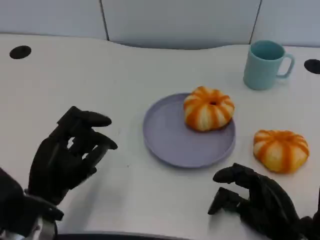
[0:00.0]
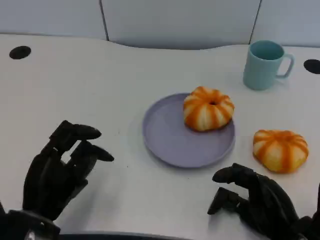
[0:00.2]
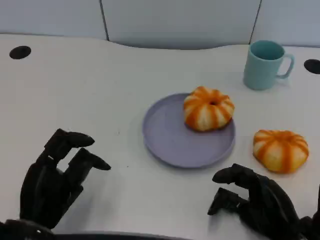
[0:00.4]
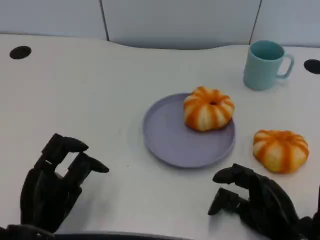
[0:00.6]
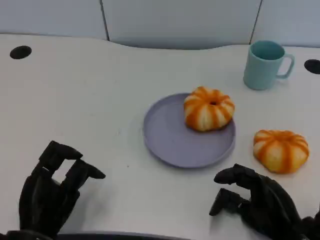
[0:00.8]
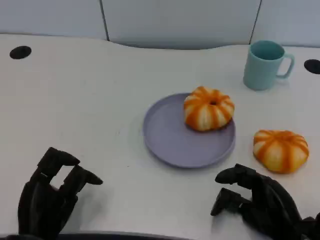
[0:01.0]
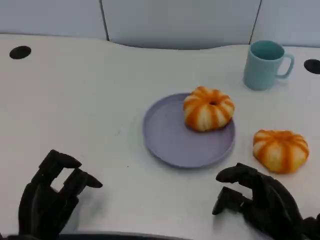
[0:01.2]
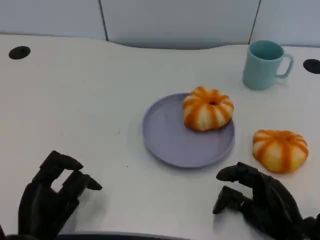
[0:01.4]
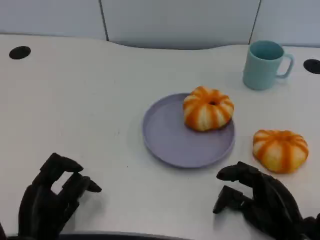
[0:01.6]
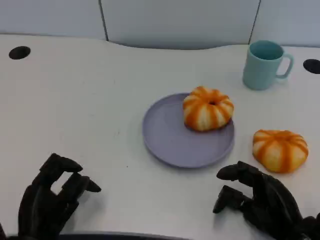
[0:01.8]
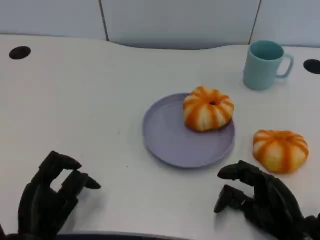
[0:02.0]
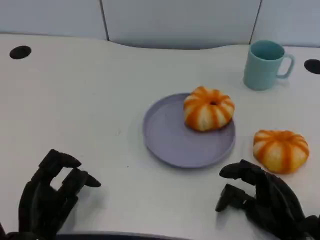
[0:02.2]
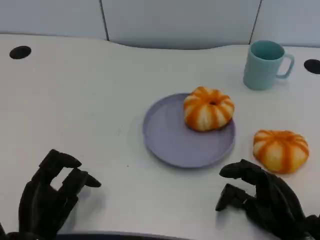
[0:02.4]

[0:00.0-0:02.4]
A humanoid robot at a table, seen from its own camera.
Task of the whole recording: Grasp the bread from the table and place it into the plate.
0:00.0 to 0:01.2: The left hand goes about 5 cm downward.
0:01.2 to 0:02.4: Both hands stay put.

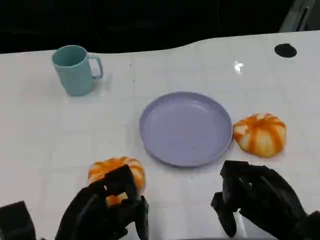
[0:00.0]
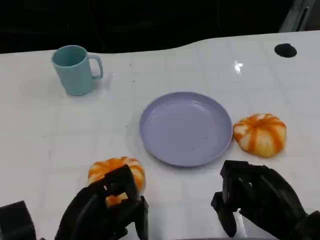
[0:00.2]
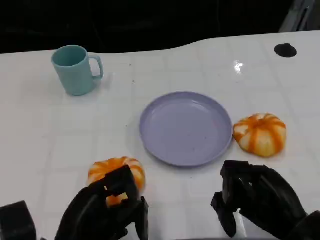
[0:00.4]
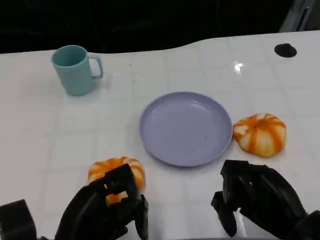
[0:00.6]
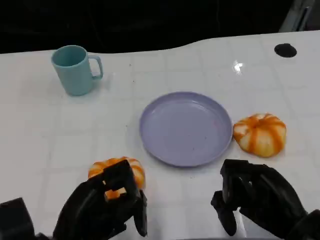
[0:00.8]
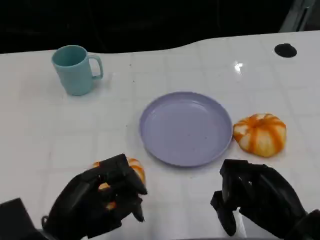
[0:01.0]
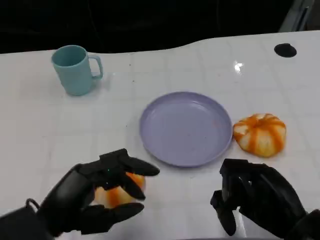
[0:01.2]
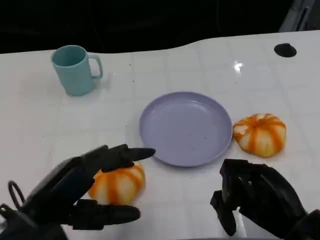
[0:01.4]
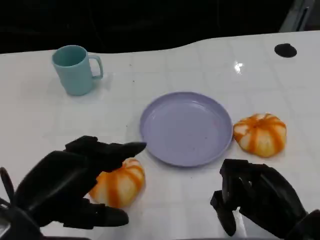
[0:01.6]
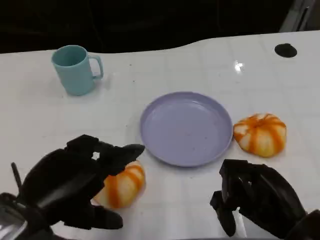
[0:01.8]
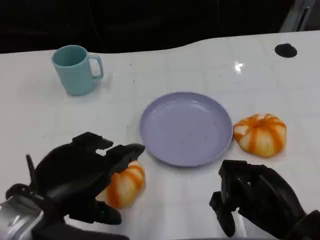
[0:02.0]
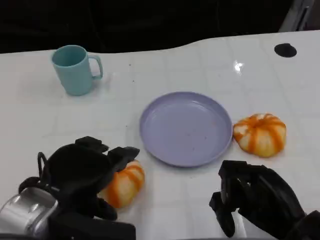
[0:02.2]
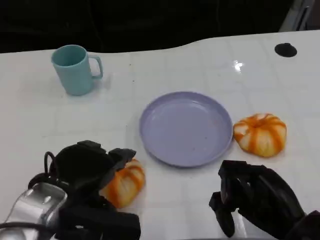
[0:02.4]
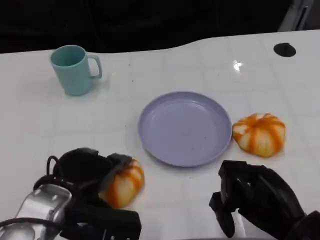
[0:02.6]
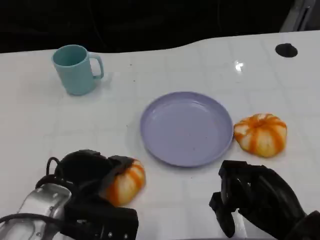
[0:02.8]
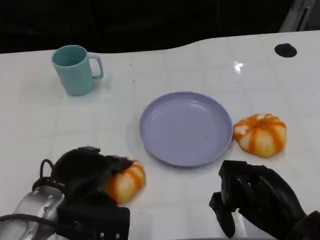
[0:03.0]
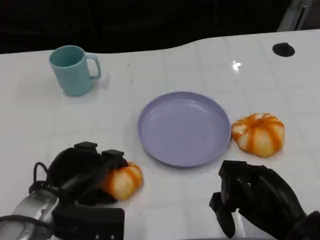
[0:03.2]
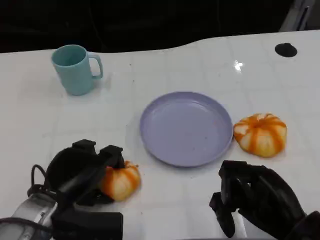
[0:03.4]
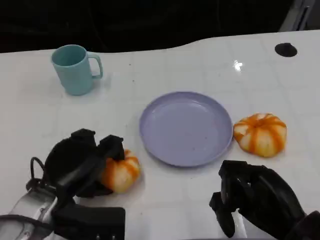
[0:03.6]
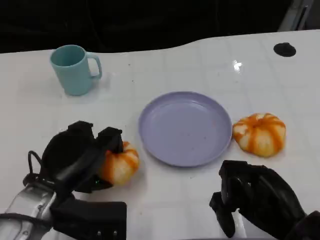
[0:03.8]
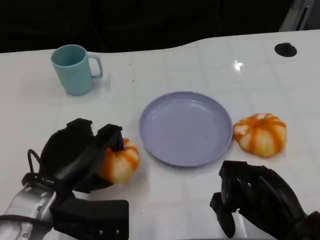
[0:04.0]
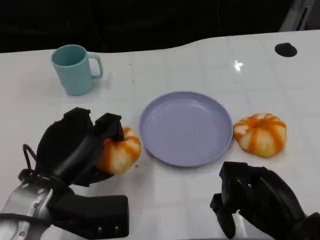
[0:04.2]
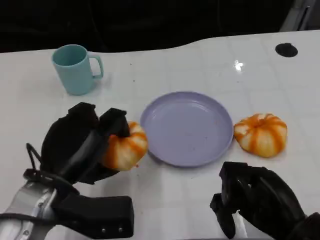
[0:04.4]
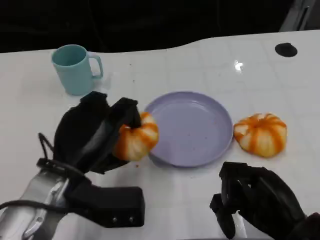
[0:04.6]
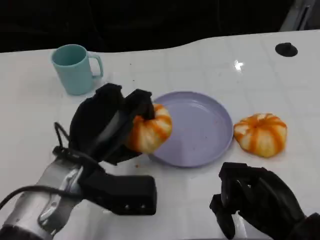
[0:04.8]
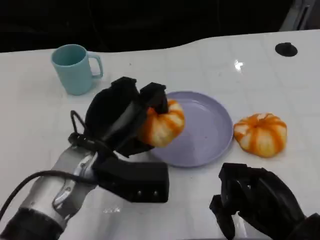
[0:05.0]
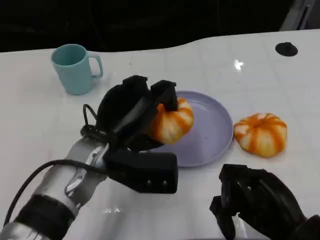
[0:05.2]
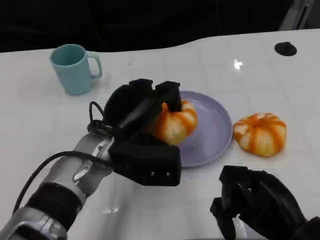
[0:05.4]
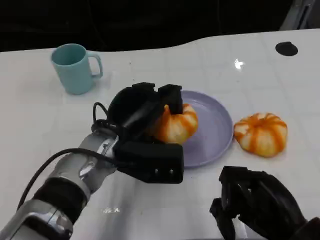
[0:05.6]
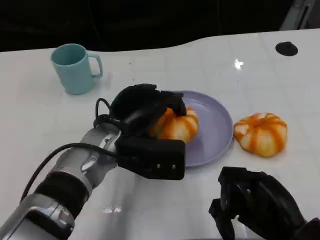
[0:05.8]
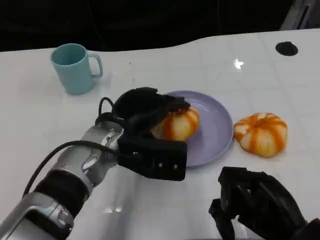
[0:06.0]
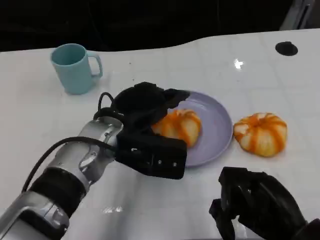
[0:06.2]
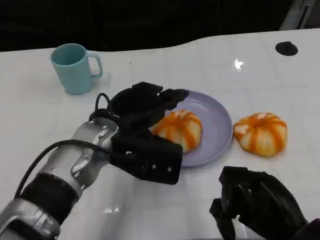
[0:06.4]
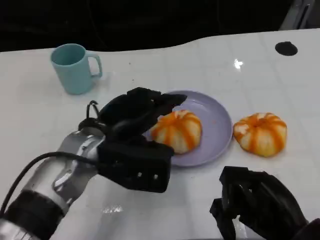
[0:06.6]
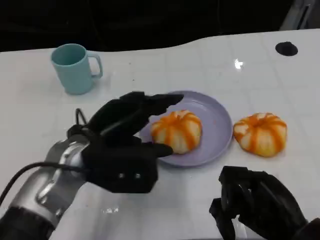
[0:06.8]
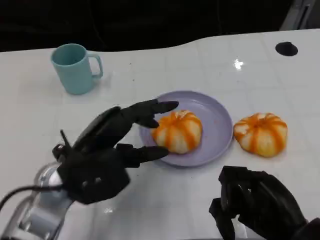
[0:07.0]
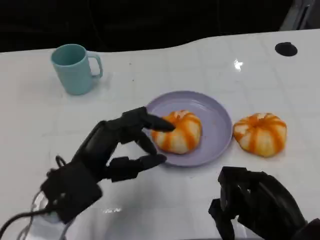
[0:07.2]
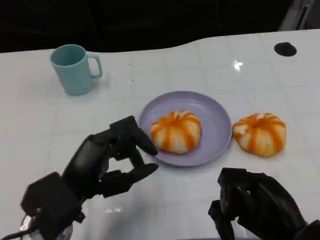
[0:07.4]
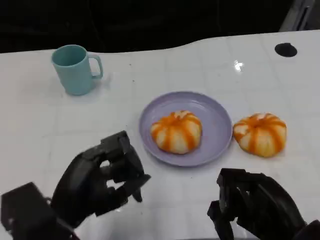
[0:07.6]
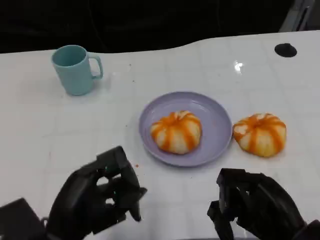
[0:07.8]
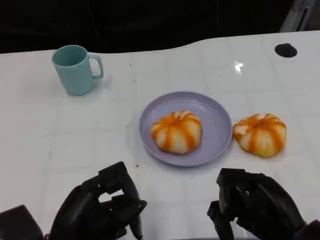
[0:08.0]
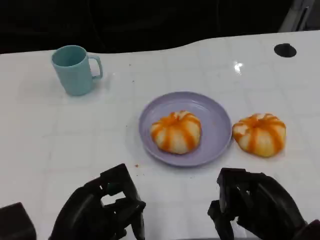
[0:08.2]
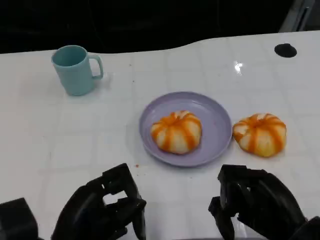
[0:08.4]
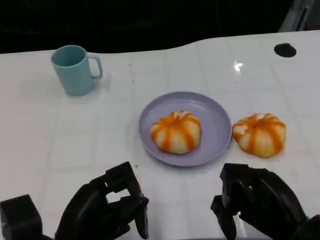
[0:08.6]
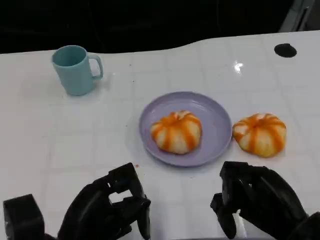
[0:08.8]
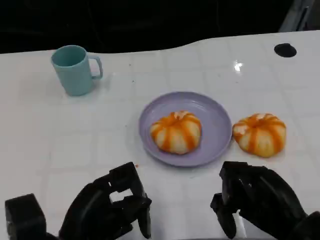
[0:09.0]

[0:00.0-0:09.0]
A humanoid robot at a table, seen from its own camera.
Task of the whole recording: Grasp the bread from the table and place it into the plate.
0:00.0 to 0:01.6: The left hand moves upward, approximately 10 cm.
0:01.6 to 0:03.0: The left hand travels downward and forward by about 10 cm.
0:04.4 to 0:06.0: The left hand heads to the right and forward, covering approximately 10 cm.
0:06.0 to 0:07.6: The left hand shifts about 15 cm backward and to the left.
0:07.6 to 0:09.0: There are only small adjustments of the hands.

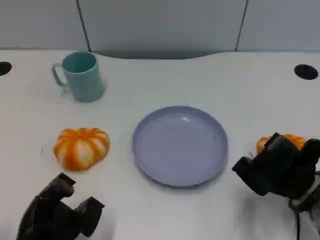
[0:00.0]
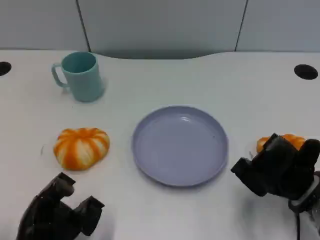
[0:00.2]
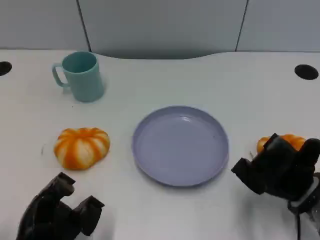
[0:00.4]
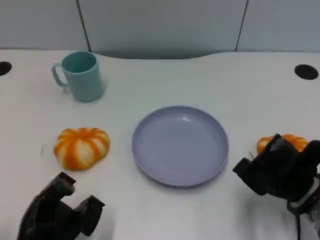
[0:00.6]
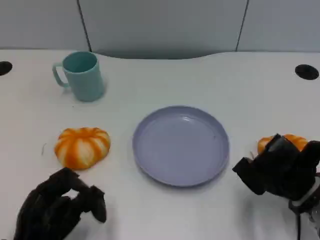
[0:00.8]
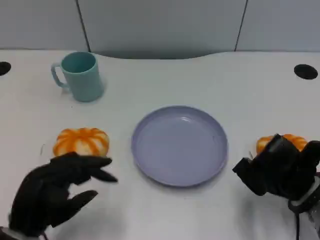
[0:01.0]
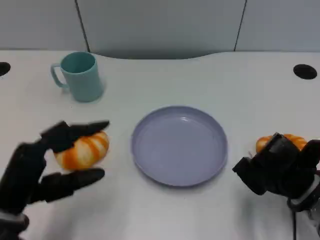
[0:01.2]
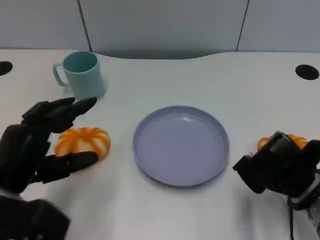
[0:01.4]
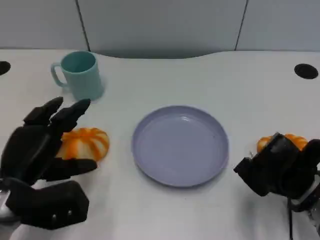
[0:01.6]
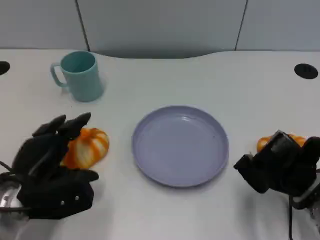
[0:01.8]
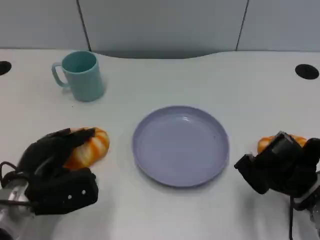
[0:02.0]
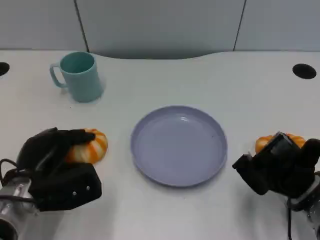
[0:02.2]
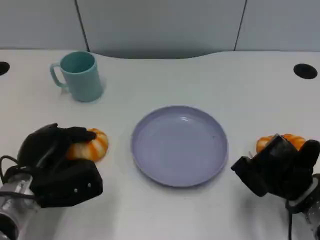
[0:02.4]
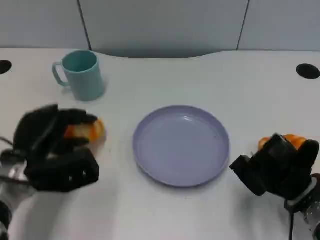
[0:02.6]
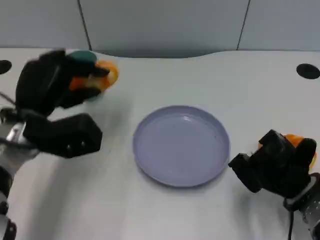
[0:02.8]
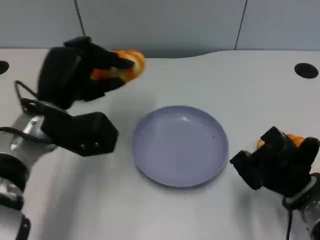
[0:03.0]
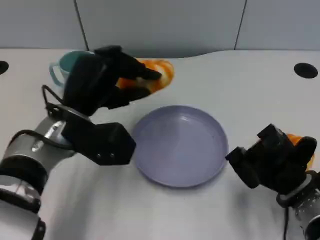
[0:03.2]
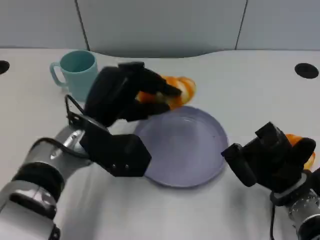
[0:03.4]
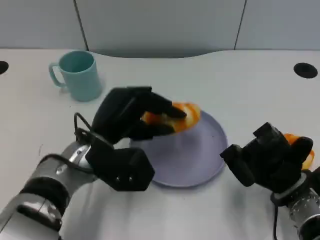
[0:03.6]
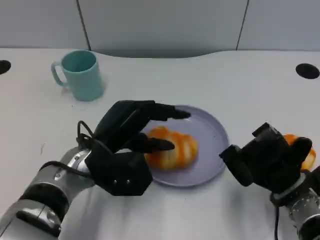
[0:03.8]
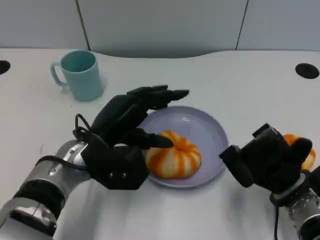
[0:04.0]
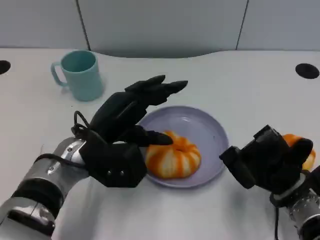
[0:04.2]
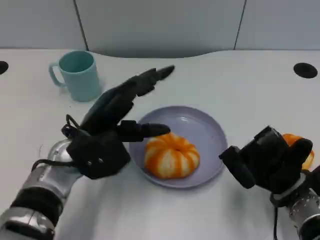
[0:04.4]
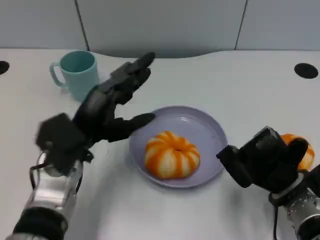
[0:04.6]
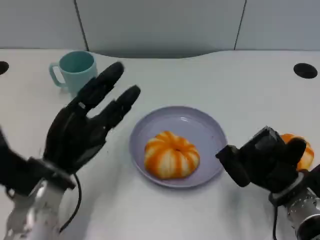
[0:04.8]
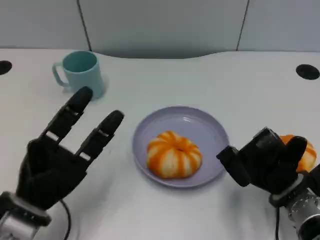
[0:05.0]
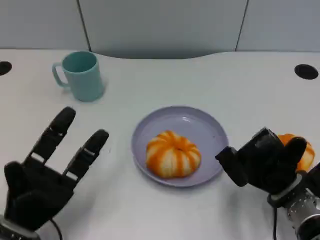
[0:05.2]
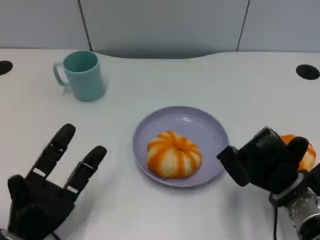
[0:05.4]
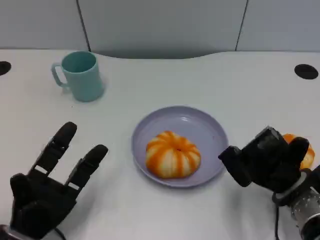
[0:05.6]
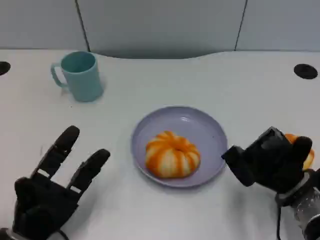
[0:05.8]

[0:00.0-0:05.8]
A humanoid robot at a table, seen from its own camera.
Task of the whole recording: Grasp the bread from the table and place it into the plate.
0:00.0 to 0:01.4: The left hand shifts approximately 10 cm upward.
0:01.4 to 0:02.8: The left hand heads forward, covering roughly 10 cm.
0:02.8 to 0:04.4: The left hand goes some 5 cm to the right.
0:04.4 to 0:05.8: The left hand goes some 15 cm downward, backward and to the left.

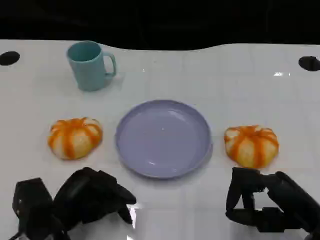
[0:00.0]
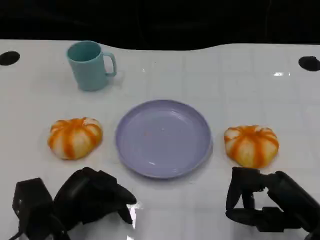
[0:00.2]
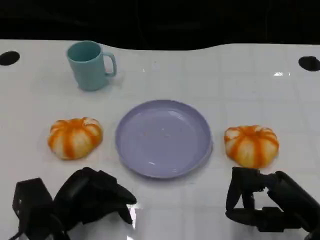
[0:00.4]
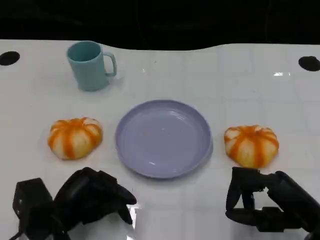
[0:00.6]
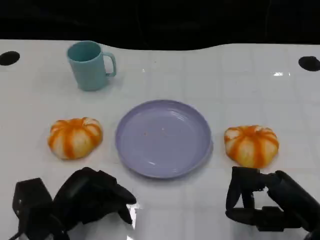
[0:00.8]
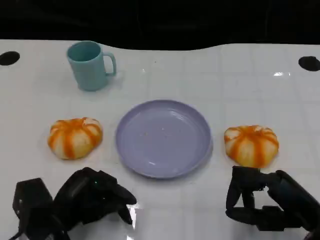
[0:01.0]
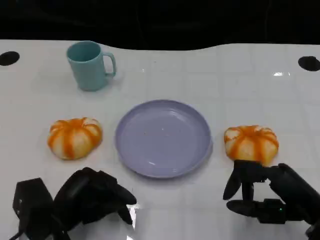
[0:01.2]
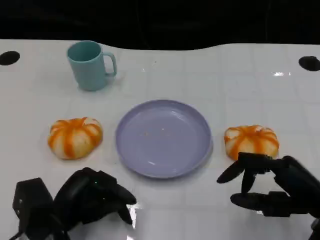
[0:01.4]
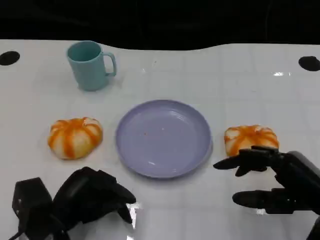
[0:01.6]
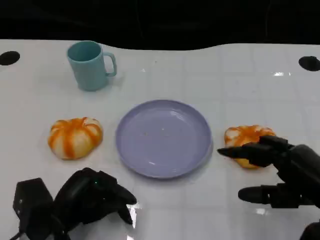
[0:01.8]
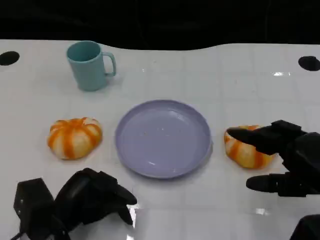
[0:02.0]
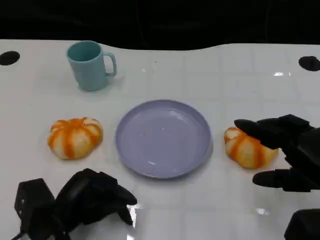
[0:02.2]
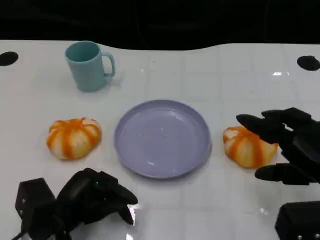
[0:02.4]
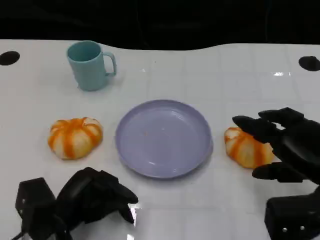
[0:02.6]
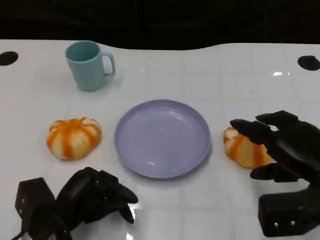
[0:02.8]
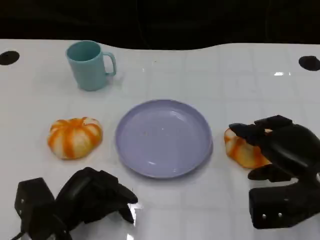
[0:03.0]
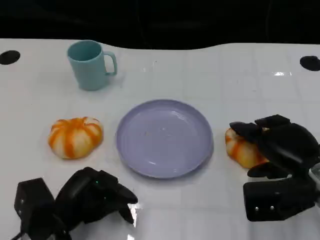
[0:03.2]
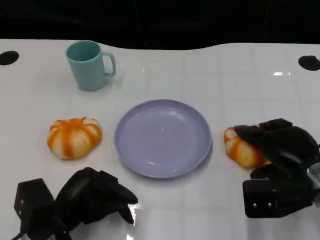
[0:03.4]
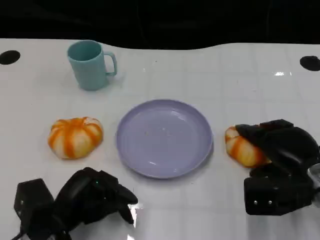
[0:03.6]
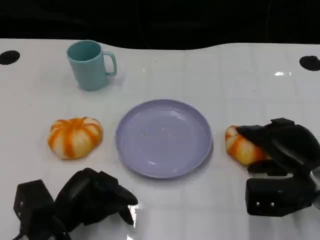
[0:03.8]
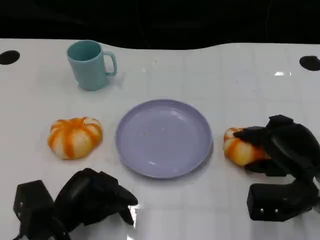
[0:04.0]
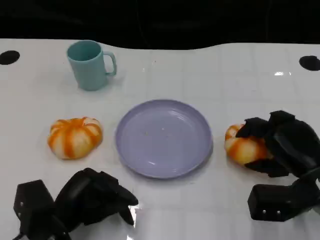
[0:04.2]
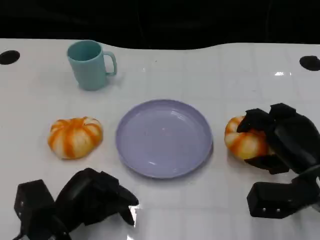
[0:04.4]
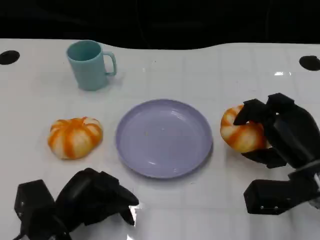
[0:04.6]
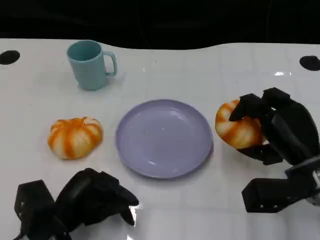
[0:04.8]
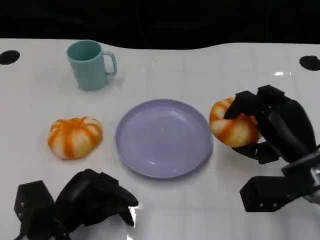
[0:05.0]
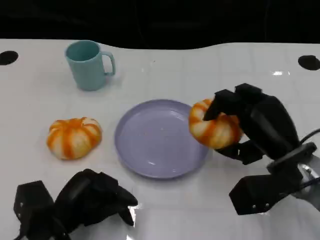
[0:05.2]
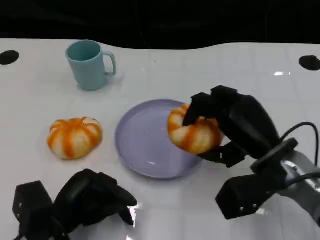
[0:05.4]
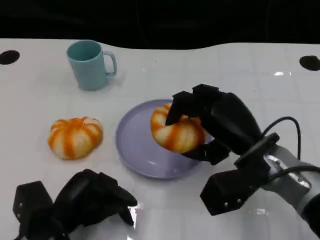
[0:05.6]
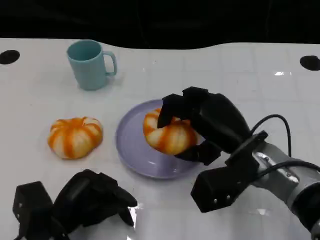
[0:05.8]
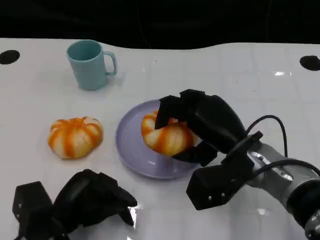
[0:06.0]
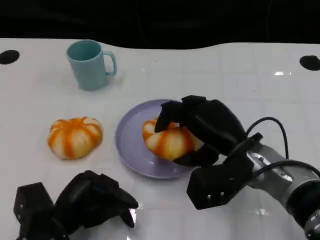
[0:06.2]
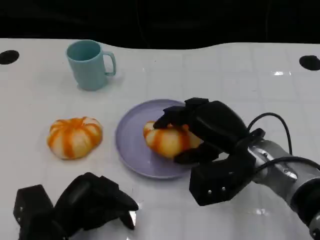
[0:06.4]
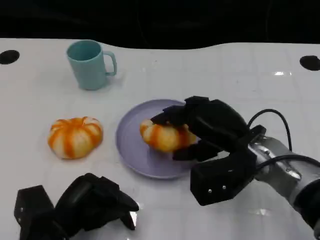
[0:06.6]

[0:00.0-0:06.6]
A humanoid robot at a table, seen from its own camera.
Task of the whole recording: Grasp the bread from the table and place it into the plate.
0:00.0 to 0:01.6: There are only small adjustments of the hands.
0:01.6 to 0:03.2: The right hand is displaced forward by some 5 cm.
0:05.0 to 0:06.6: The right hand moves to the left, roughly 5 cm.
